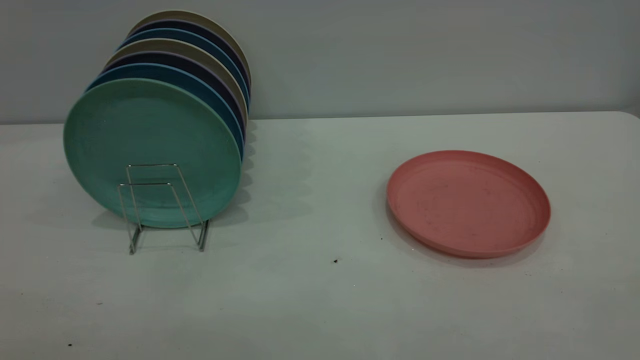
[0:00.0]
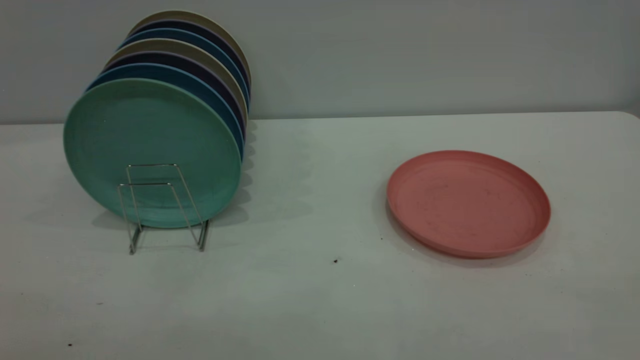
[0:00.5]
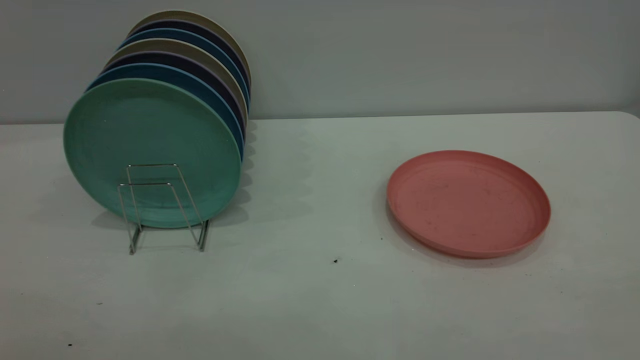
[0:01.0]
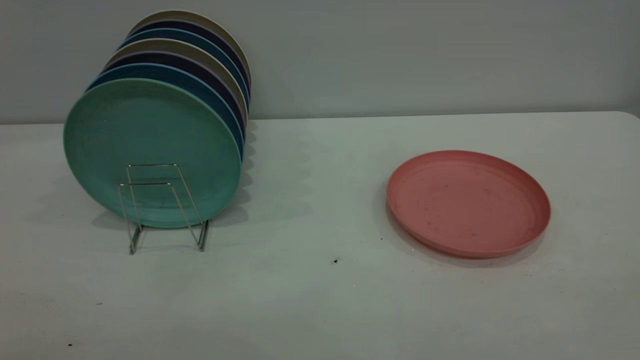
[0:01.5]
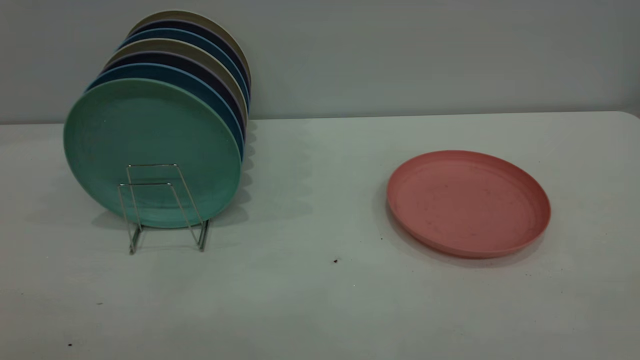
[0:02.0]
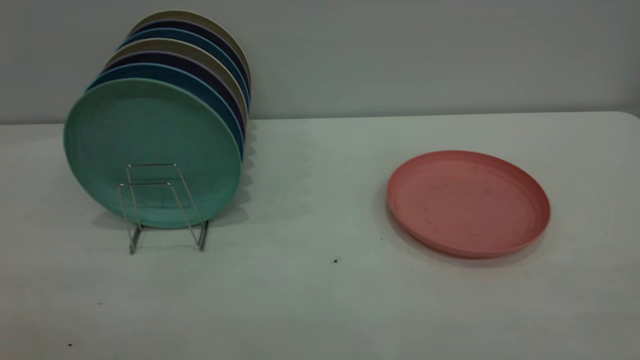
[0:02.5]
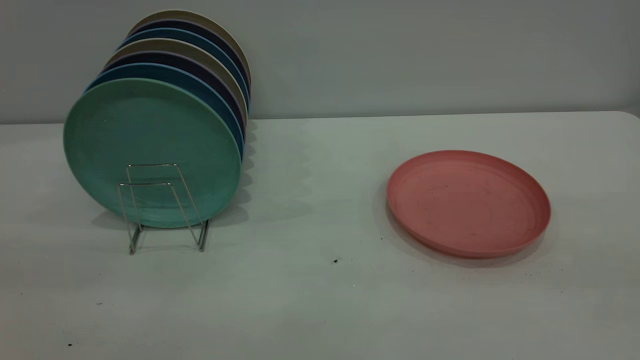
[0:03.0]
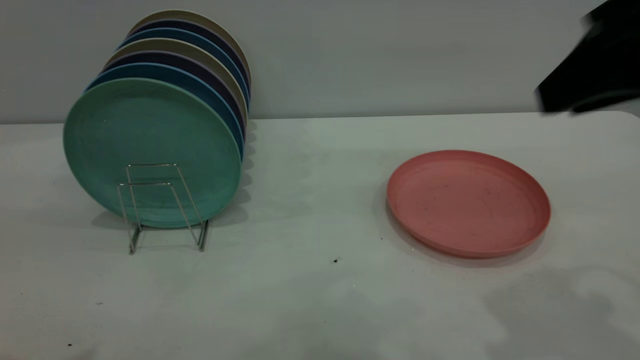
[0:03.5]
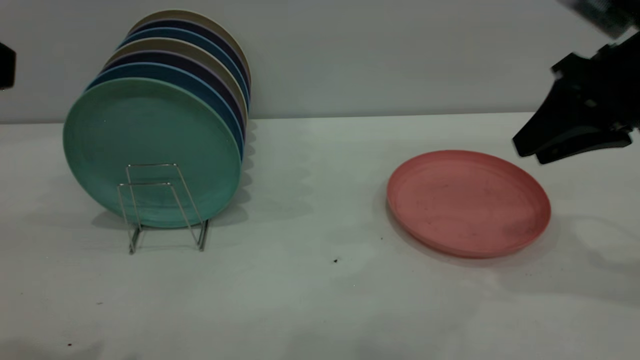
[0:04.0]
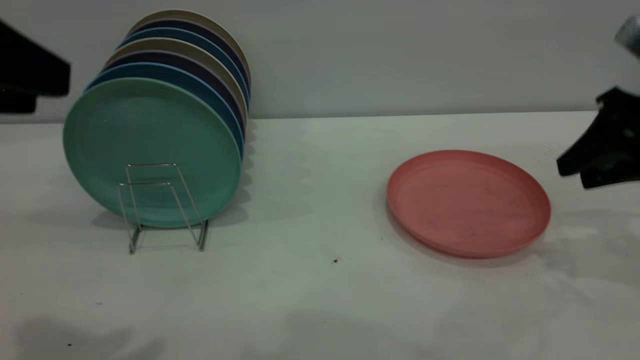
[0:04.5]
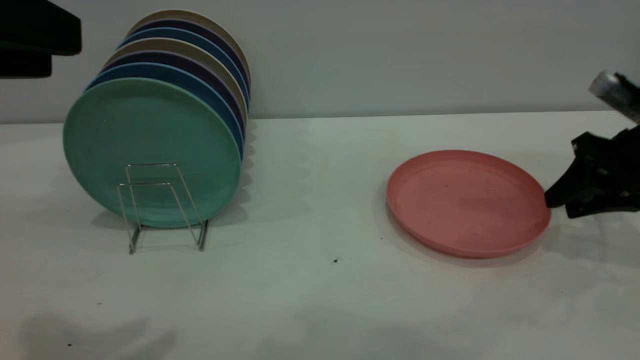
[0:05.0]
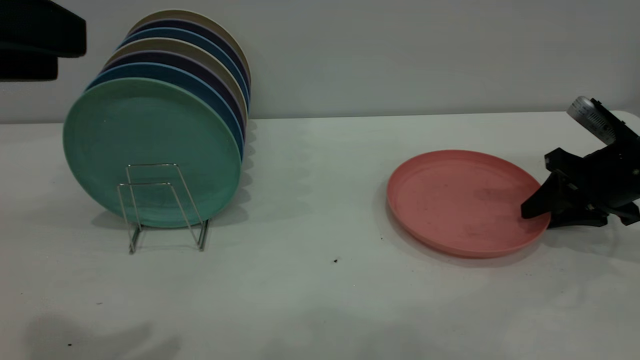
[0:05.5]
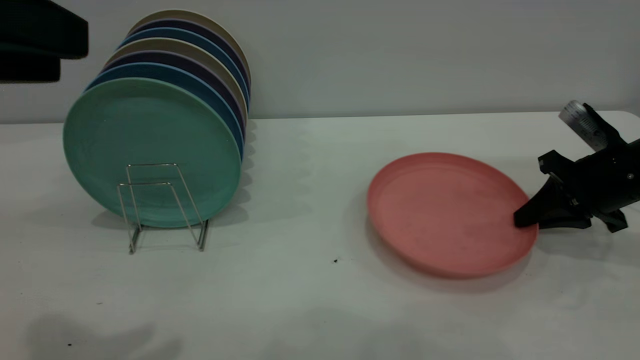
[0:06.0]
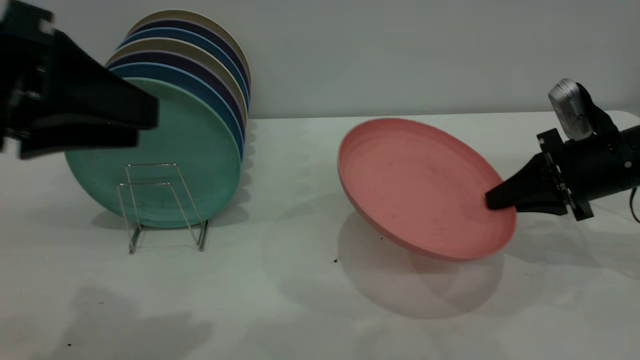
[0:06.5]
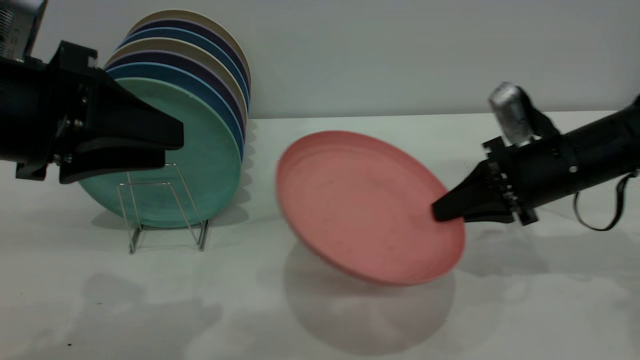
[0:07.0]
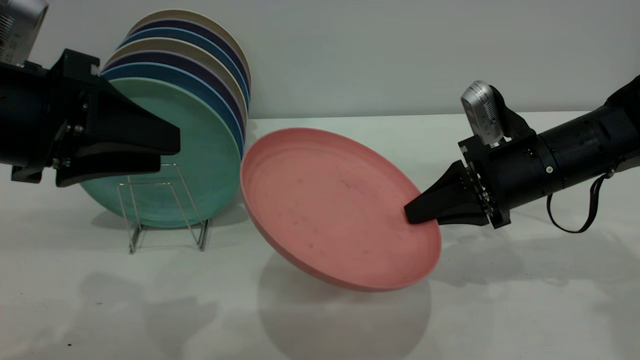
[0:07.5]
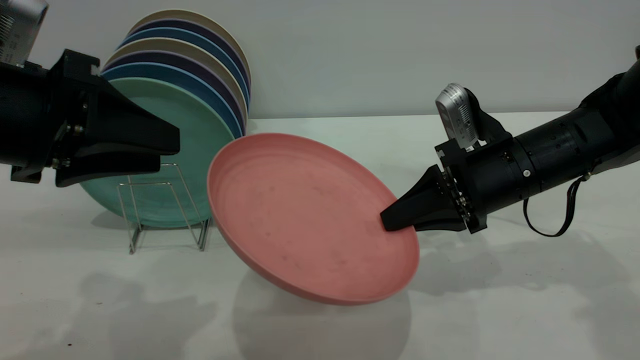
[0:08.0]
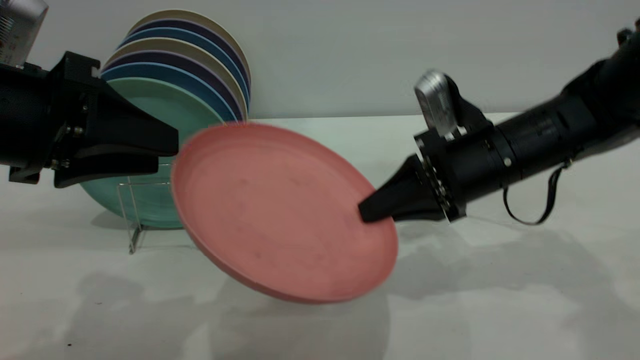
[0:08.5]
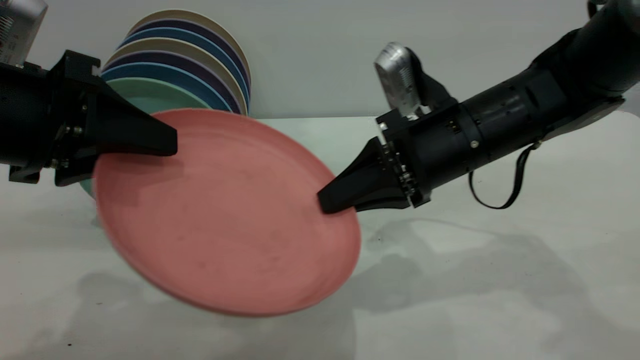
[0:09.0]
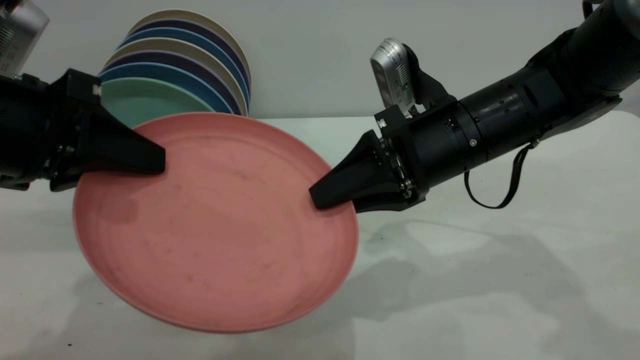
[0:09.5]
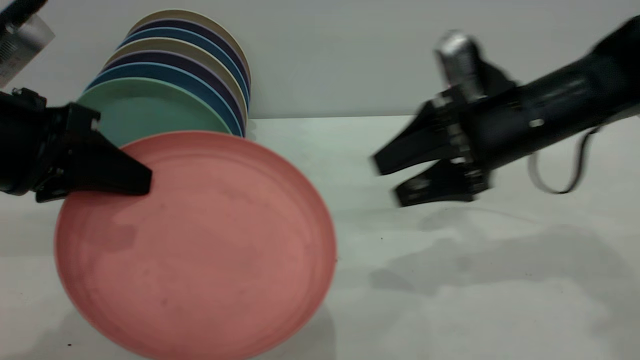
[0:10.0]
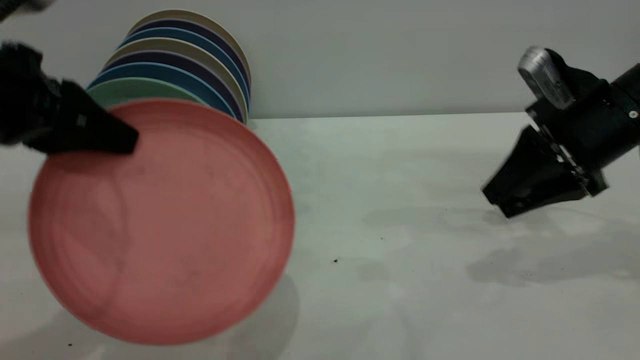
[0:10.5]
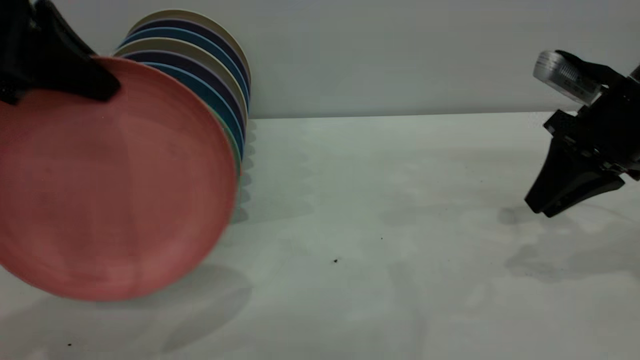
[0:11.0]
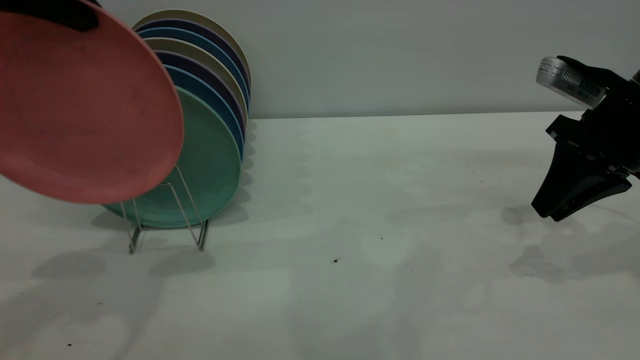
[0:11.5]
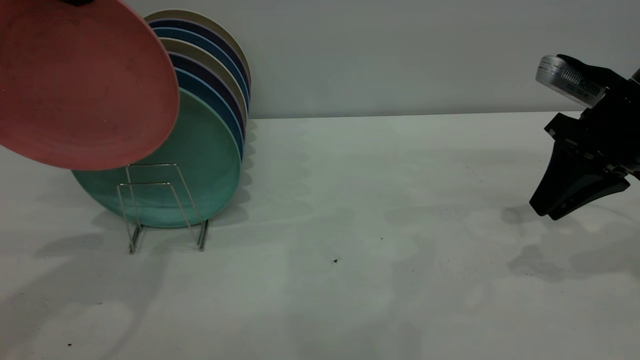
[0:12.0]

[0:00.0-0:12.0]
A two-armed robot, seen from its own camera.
Task of the whole recording: the right gripper grasp the pink plate, the right gripper pass the pink plate to the left gripper, and the left gripper place the pink plate on the plate rack.
Step, 0:00.0 to 0:06.0: Pick up the plate with the right gripper.
Step, 0:06.5 to 0:09.5: Pass the plate from the right gripper to the left gripper.
0:00.0 to 0:02.0: Both grippers stay about where they are.
0:02.0 to 0:04.0: The right gripper moves forward, roughly 35 cm.
0:04.0 to 0:06.0: The right gripper travels downward by about 15 cm, and closes.
0:06.0 to 0:08.0: The right gripper shifts about 15 cm to the left. The left gripper travels downward and forward by some 10 cm.
0:08.0 to 0:10.0: The right gripper heads upward, covering approximately 5 cm, moves approximately 5 cm to the left and comes back, and opens its fingers, while the left gripper closes its fingers.
0:10.0 to 0:12.0: The left gripper shifts about 15 cm upward and forward. Meanwhile the right gripper travels to the right by some 10 cm, and closes up.

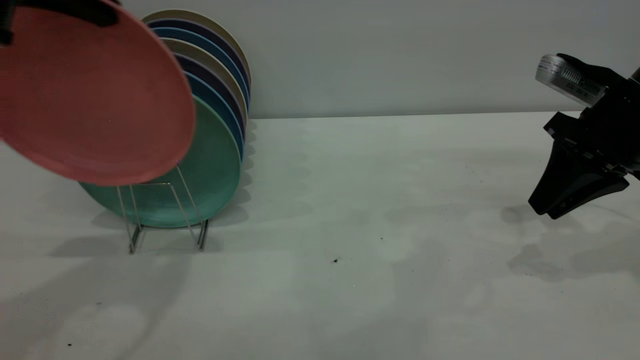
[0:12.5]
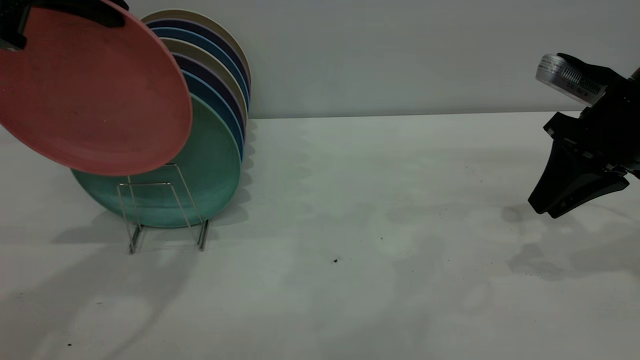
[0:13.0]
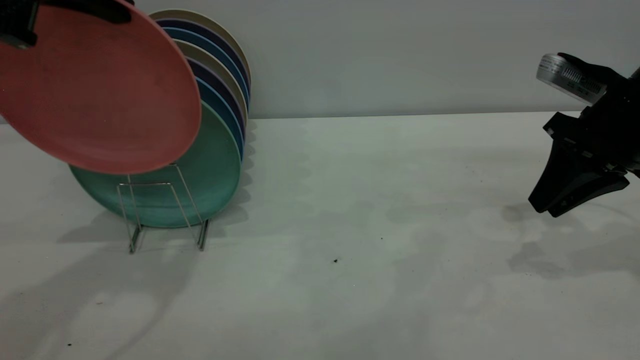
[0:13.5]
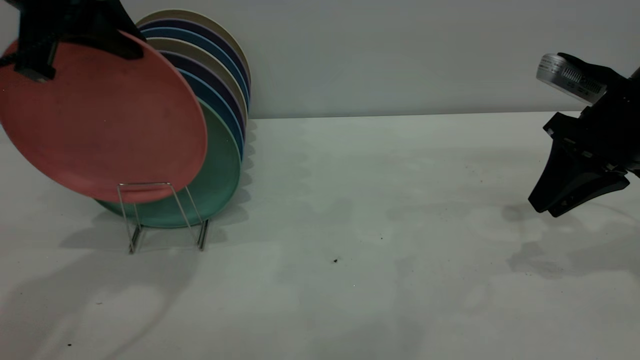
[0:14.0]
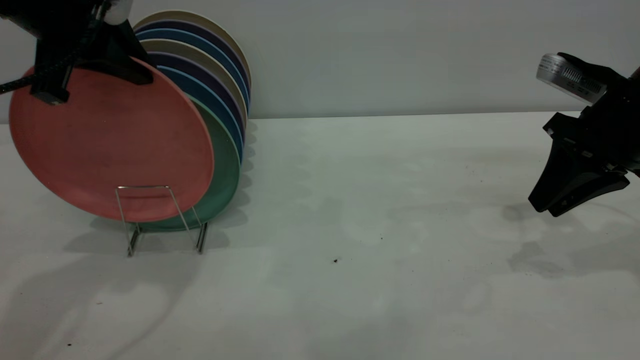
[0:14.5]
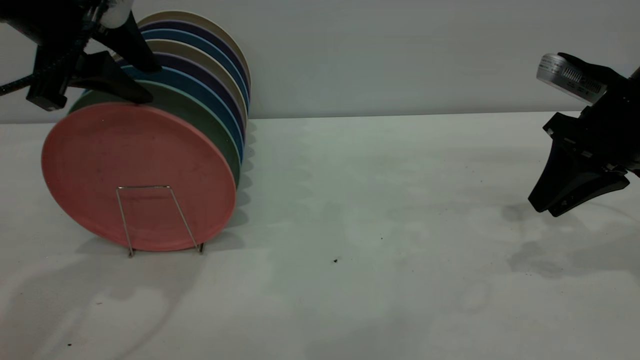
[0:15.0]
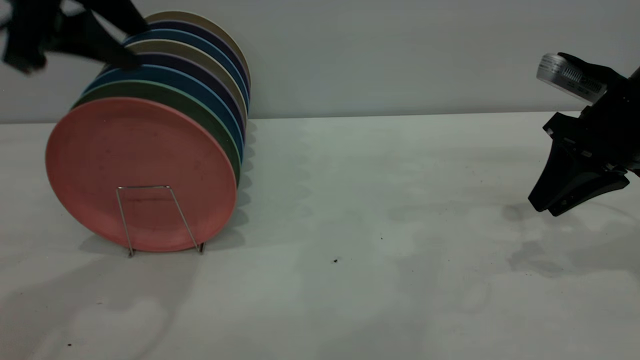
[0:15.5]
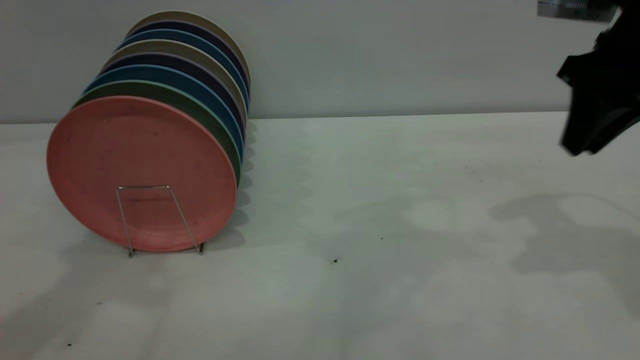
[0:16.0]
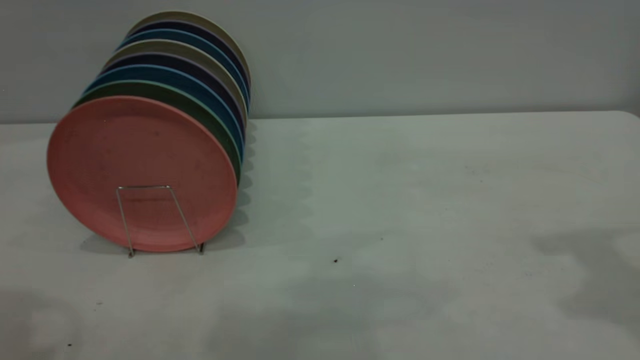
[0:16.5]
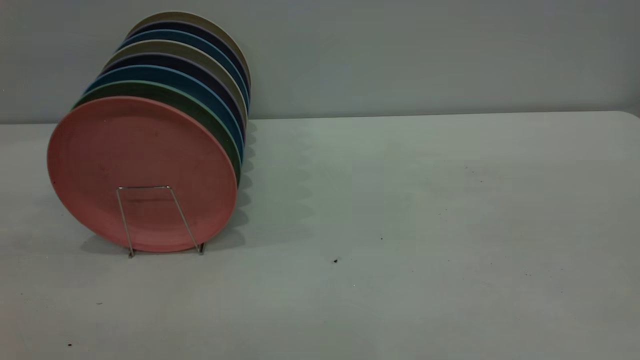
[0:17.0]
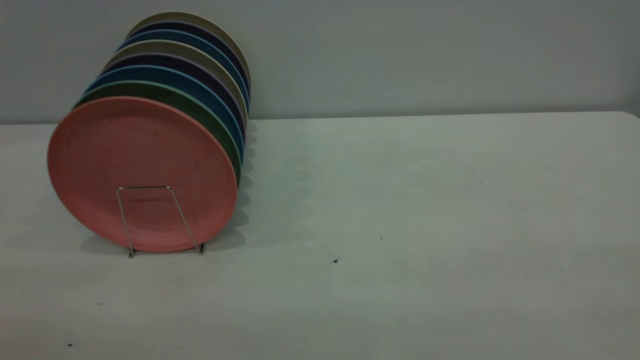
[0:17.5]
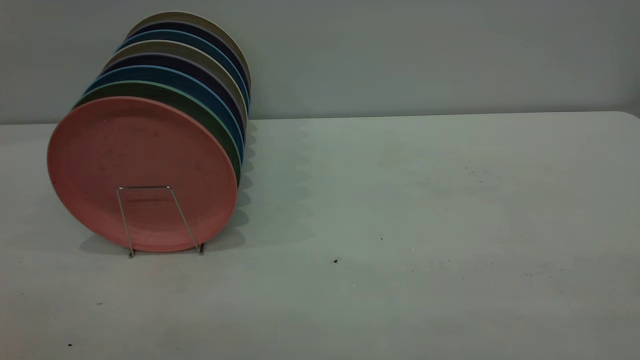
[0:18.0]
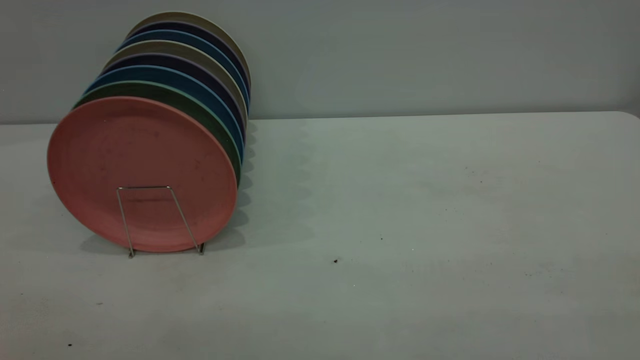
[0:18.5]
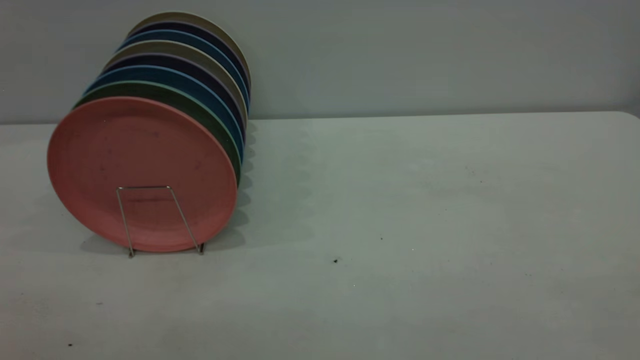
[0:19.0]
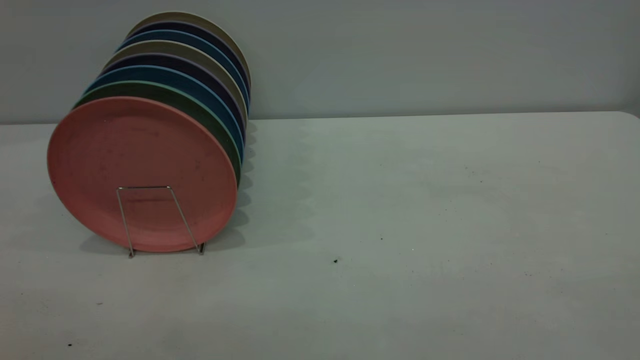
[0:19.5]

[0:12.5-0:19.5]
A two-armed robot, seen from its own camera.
Task of the whole recording: the right gripper grasp the pink plate, the right gripper pass the pink plate to the left gripper, and the left gripper place the pink plate on the plate rack.
Step, 0:12.5 to 0:15.5: Place the plate on the shelf.
0:12.5 to 0:14.5: The left gripper heads downward, covering approximately 5 cm.
0:14.5 to 0:16.0: The left gripper moves upward and backward, approximately 15 cm, and opens its fingers. The right gripper is displaced upward by about 10 cm.
0:16.0 to 0:17.5: The right gripper moves backward, approximately 35 cm.

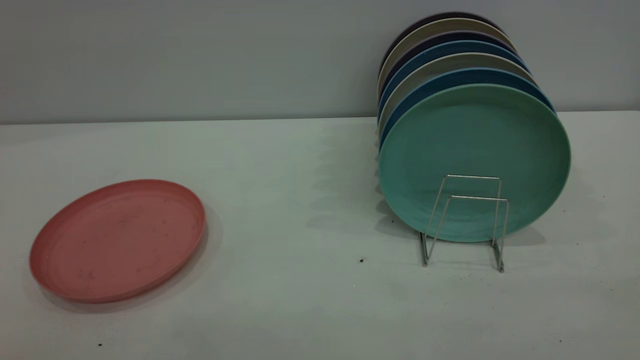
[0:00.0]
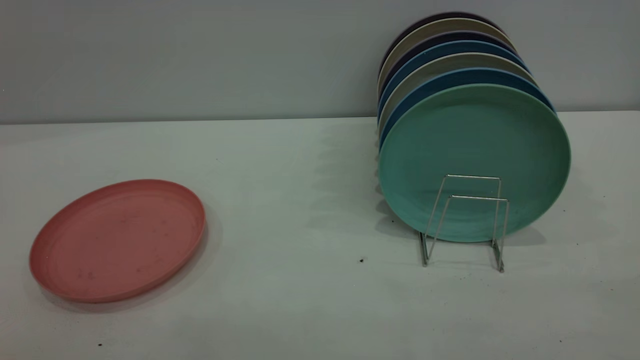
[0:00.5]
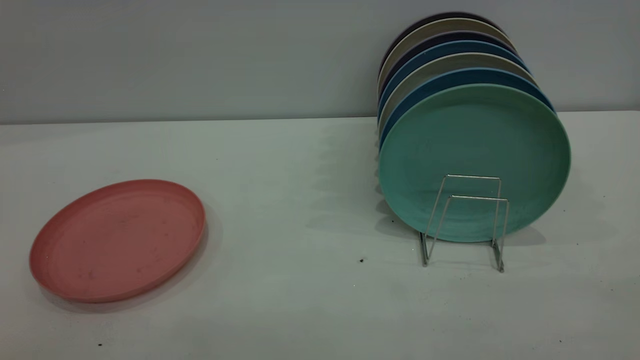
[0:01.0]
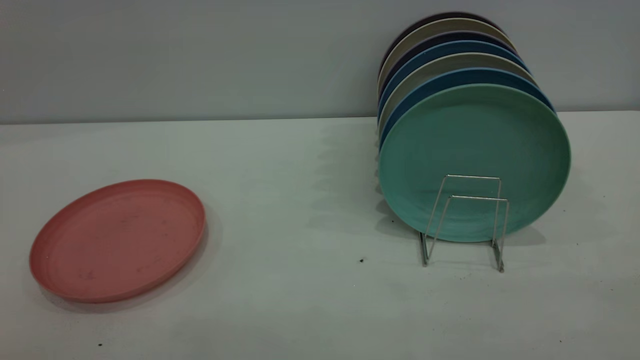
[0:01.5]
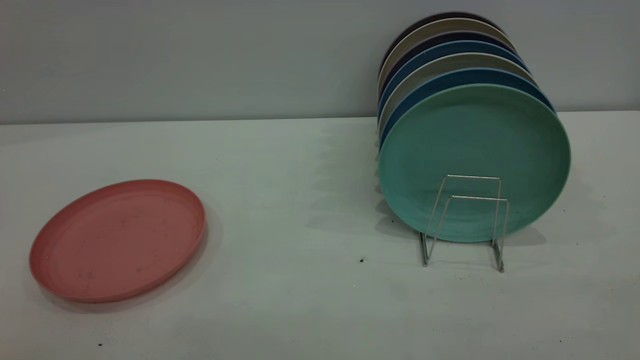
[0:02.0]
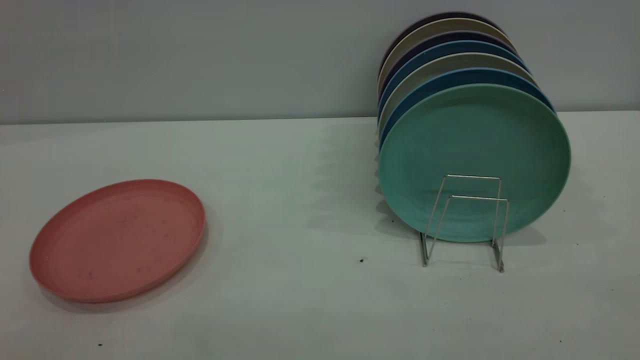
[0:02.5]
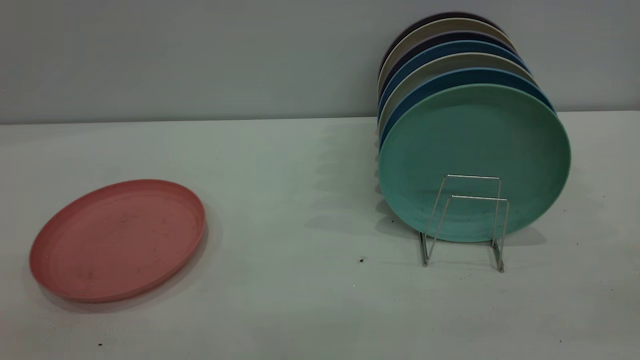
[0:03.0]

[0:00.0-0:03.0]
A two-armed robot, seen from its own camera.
Task of the whole recording: put the plate on the plate rack.
0:00.0 to 0:01.5: The two grippers keep their place.
